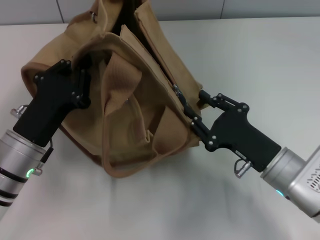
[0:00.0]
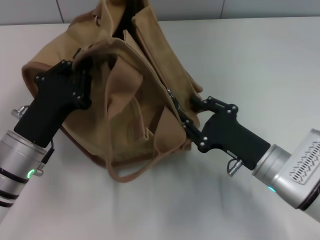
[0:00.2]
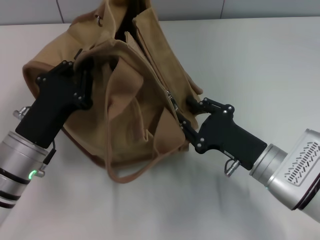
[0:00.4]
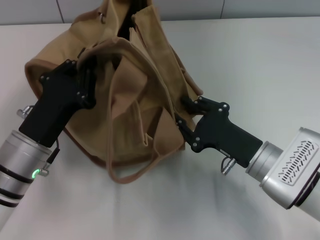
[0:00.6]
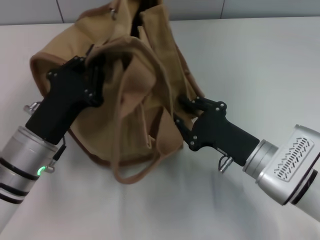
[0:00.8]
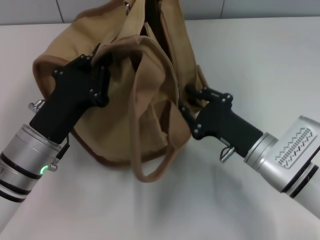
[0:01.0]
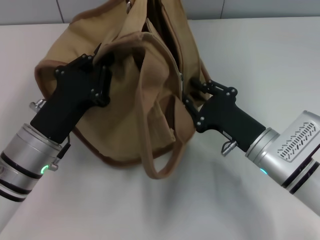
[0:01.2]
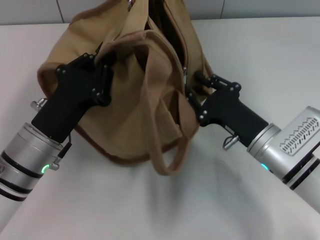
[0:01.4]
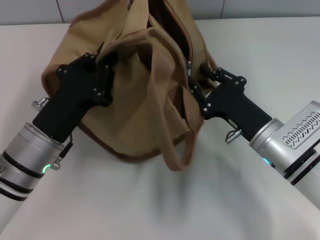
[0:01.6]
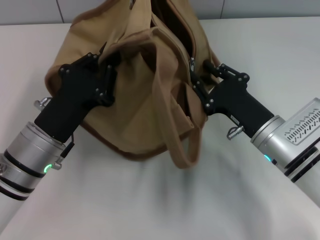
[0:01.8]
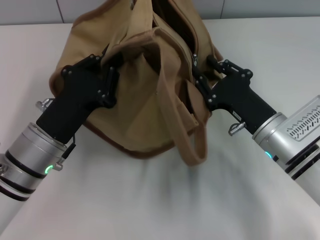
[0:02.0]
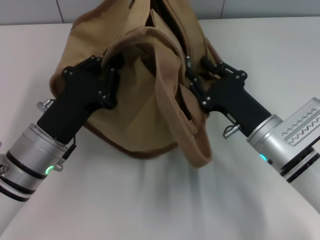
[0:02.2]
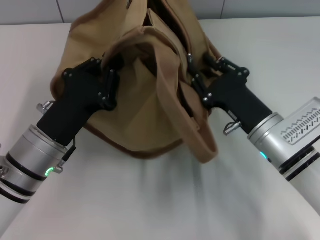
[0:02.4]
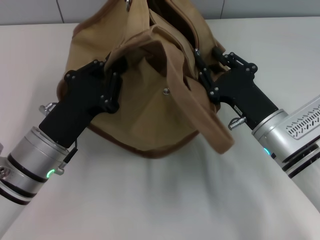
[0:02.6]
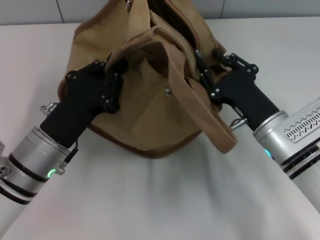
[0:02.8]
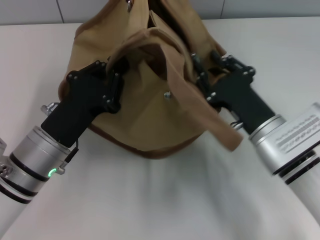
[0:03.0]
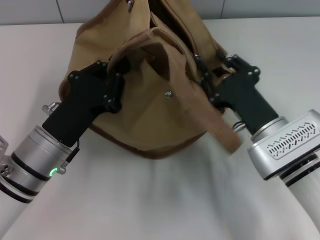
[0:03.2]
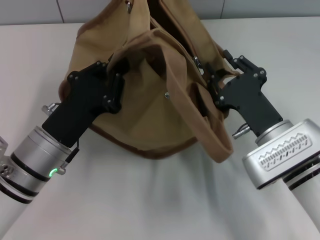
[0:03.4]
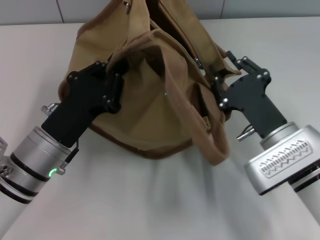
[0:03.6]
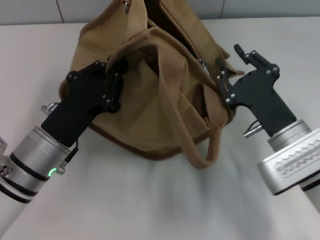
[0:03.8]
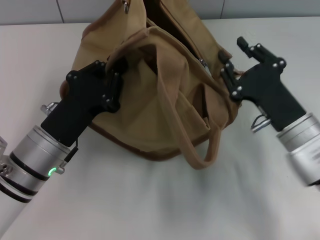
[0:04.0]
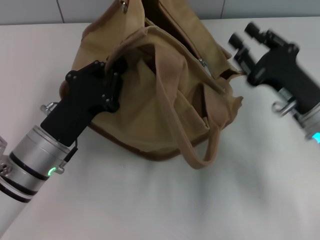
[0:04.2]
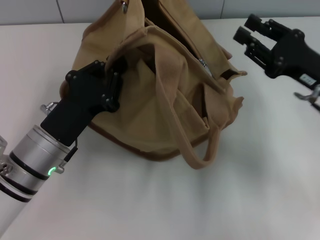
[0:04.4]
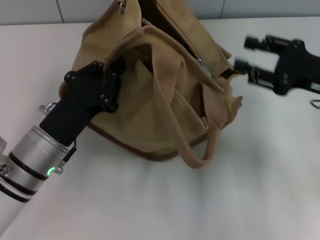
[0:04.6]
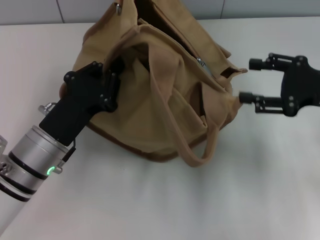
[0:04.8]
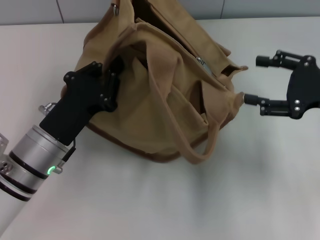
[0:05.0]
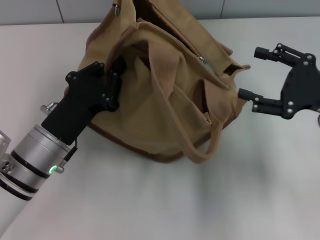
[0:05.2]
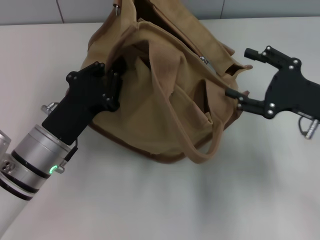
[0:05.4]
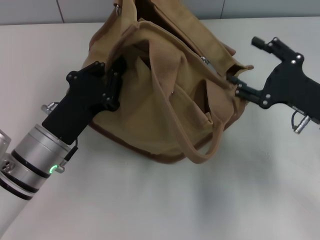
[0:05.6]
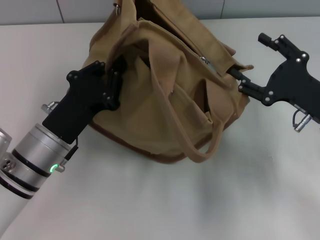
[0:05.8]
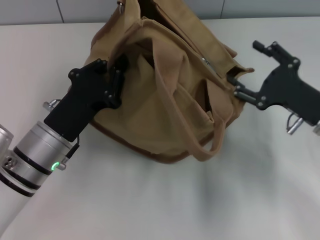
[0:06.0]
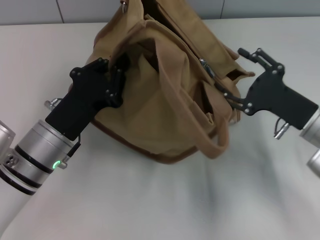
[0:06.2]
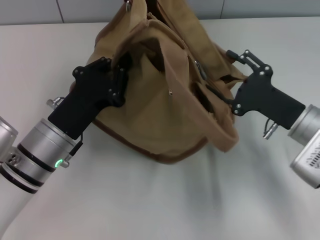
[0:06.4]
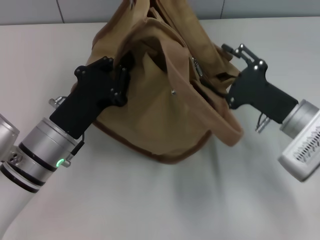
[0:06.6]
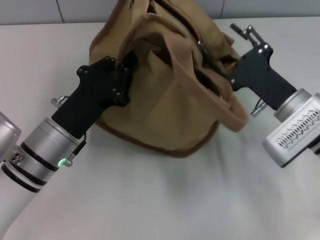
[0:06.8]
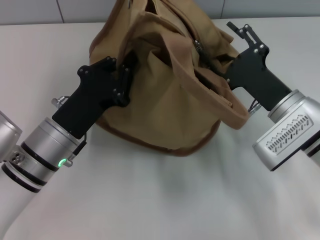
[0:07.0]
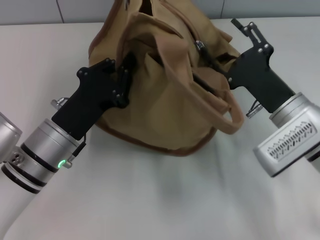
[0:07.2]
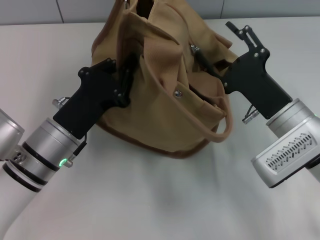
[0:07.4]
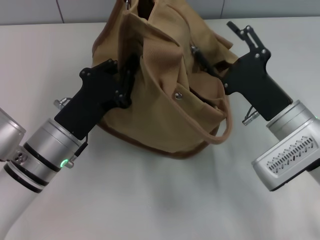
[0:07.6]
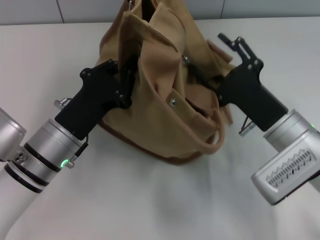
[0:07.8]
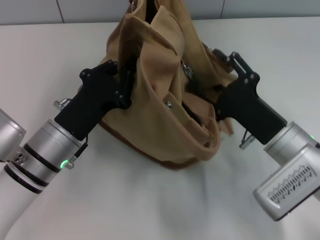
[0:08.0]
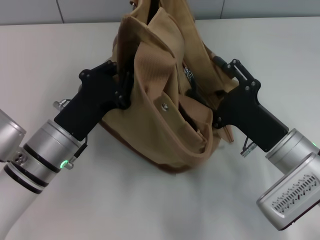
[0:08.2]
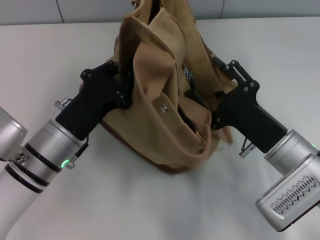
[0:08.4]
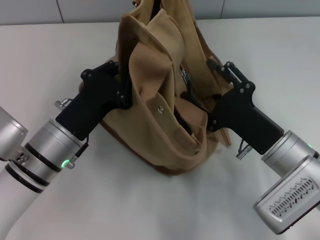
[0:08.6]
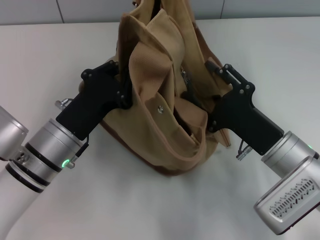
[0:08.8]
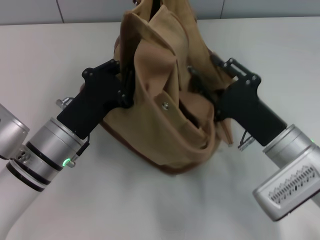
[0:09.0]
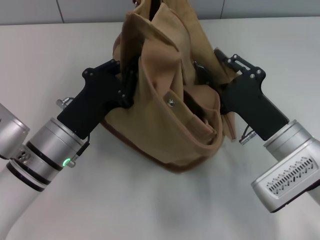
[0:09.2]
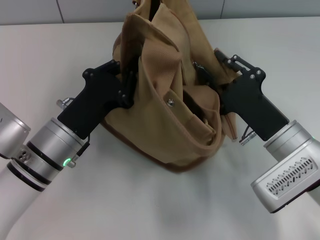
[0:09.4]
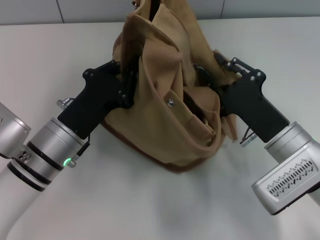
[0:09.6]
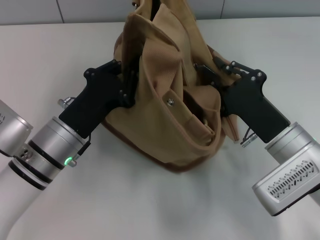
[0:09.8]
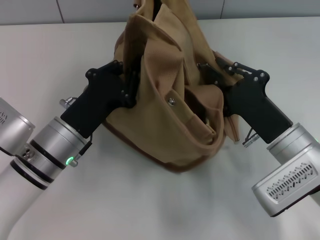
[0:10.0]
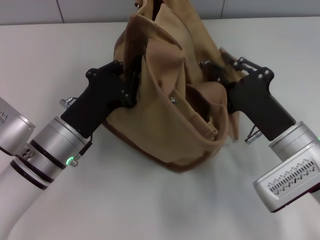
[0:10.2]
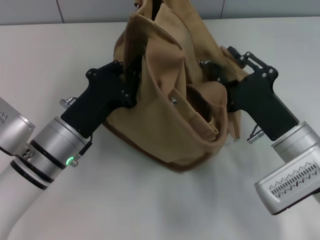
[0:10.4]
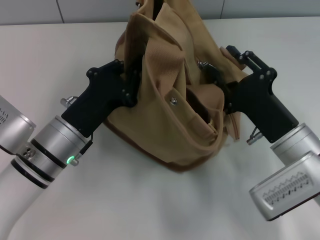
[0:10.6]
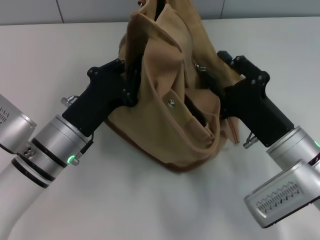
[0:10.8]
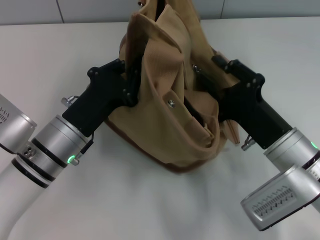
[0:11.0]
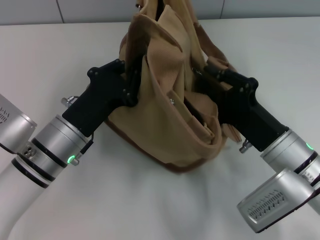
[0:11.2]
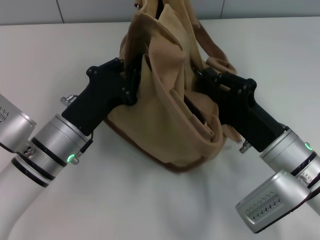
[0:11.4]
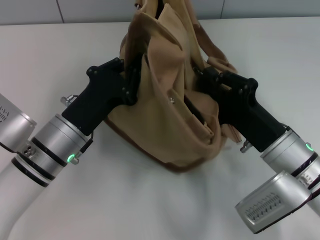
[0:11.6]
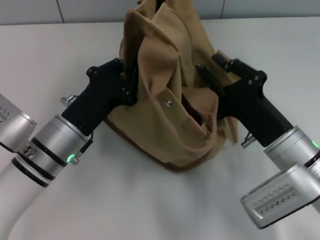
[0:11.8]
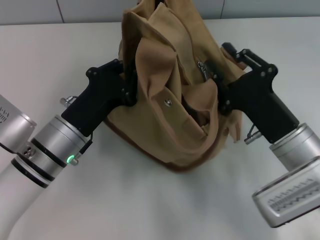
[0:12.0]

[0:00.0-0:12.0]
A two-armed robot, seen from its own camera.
0:03.0 to 0:04.4: The right gripper shifts about 10 cm to the right and upward.
0:04.4 to 0:06.0: The right gripper moves some 5 cm, and opens up.
0:06.0 to 0:07.6: The right gripper heads to the left, covering some 5 cm.
0:09.0 to 0:10.4: The right gripper closes.

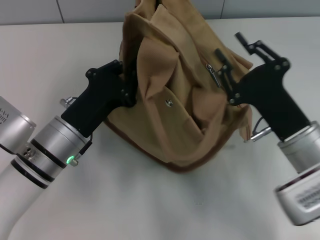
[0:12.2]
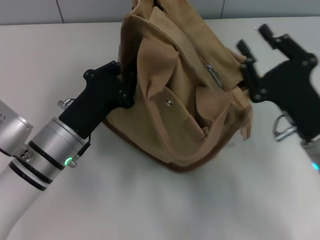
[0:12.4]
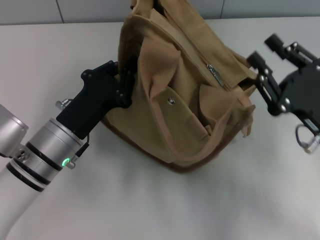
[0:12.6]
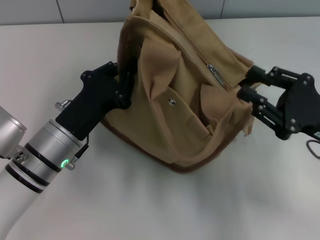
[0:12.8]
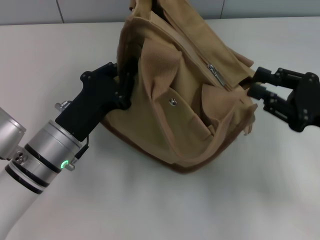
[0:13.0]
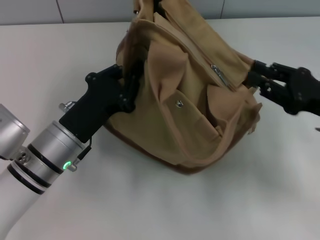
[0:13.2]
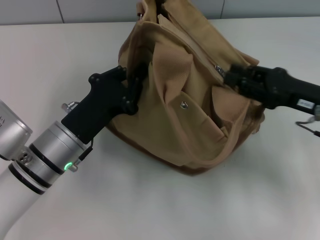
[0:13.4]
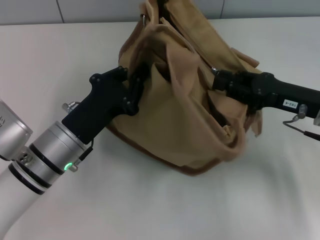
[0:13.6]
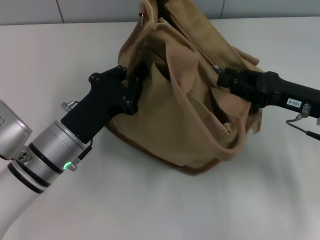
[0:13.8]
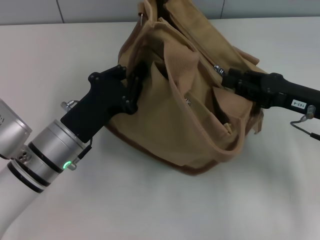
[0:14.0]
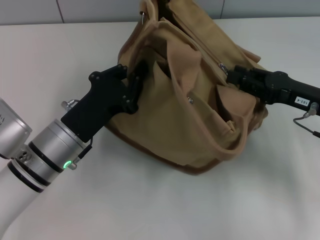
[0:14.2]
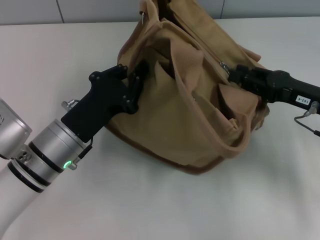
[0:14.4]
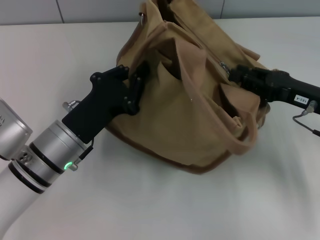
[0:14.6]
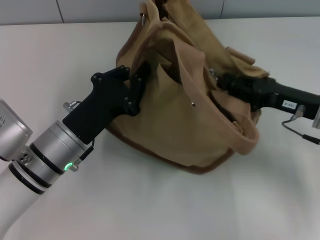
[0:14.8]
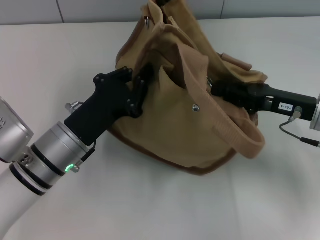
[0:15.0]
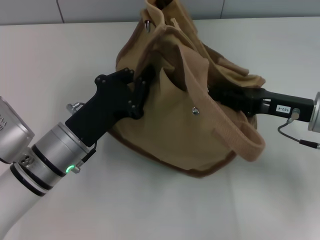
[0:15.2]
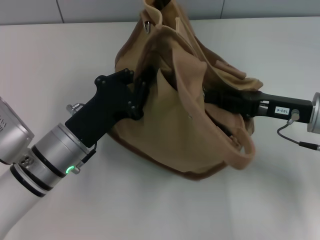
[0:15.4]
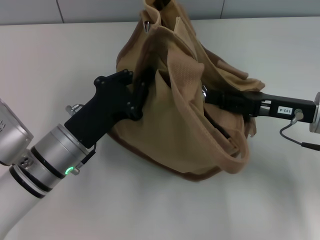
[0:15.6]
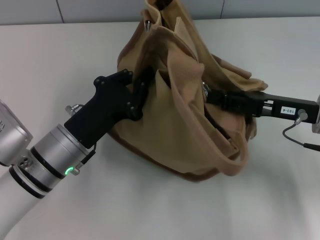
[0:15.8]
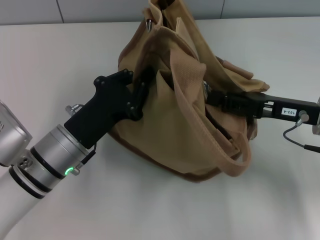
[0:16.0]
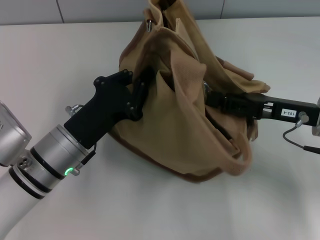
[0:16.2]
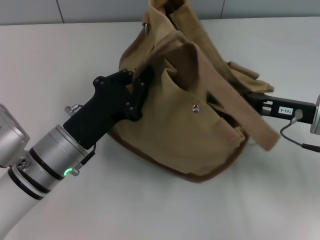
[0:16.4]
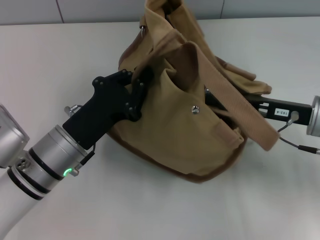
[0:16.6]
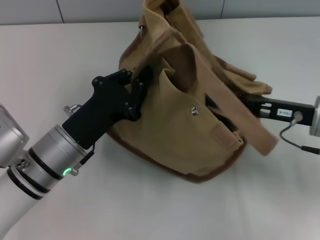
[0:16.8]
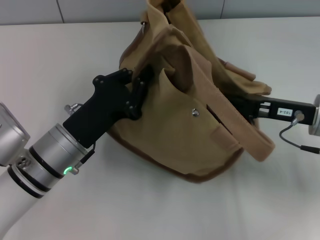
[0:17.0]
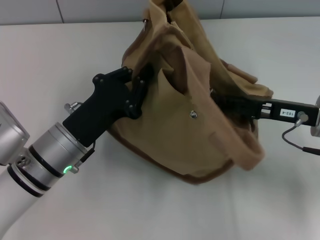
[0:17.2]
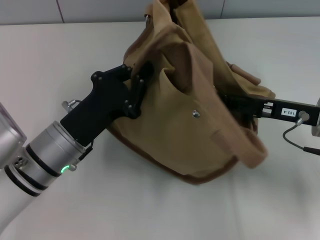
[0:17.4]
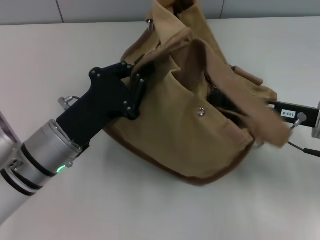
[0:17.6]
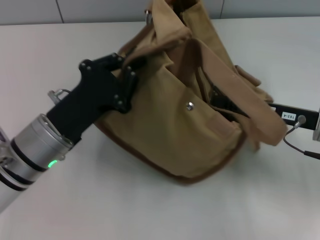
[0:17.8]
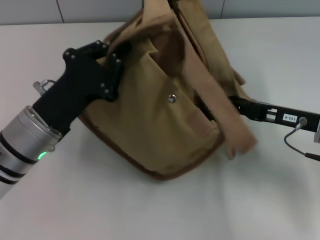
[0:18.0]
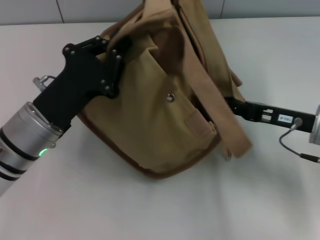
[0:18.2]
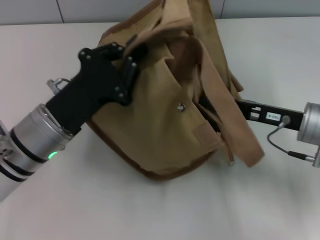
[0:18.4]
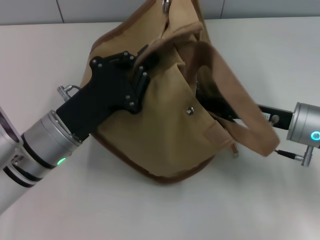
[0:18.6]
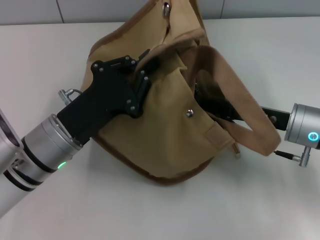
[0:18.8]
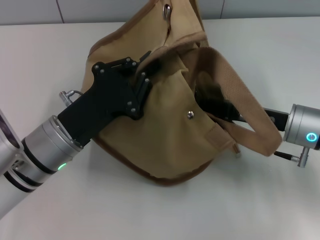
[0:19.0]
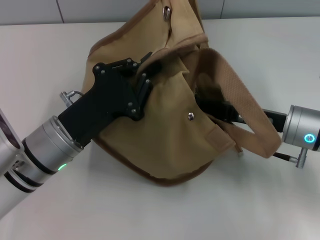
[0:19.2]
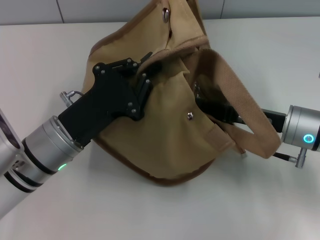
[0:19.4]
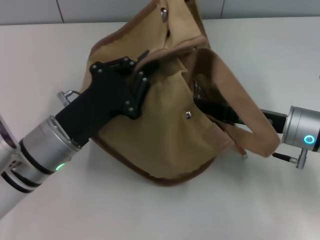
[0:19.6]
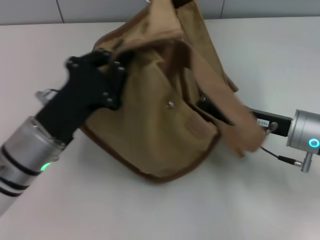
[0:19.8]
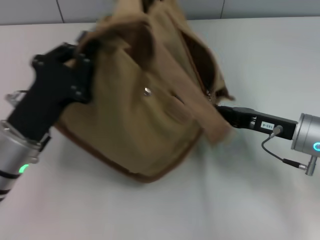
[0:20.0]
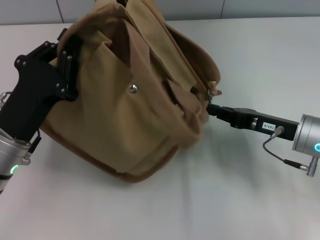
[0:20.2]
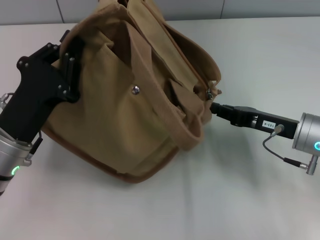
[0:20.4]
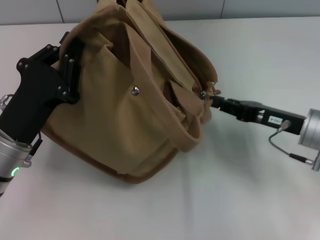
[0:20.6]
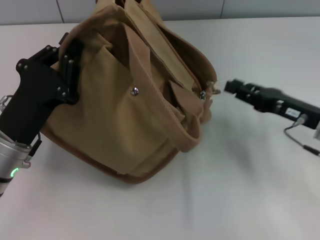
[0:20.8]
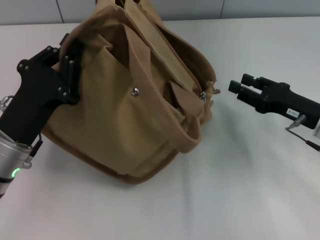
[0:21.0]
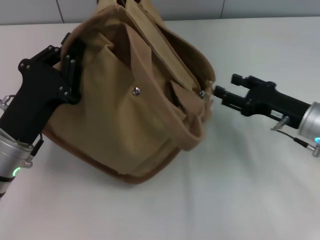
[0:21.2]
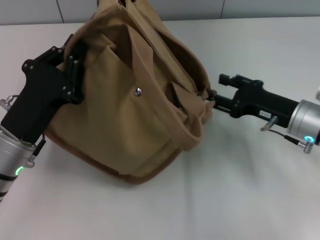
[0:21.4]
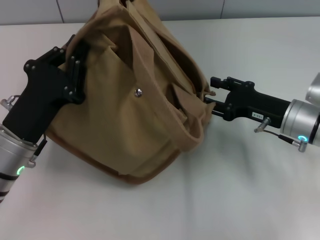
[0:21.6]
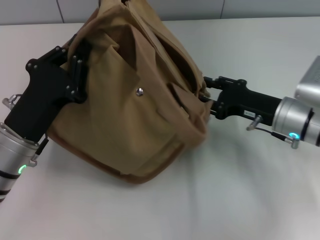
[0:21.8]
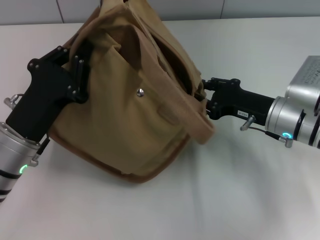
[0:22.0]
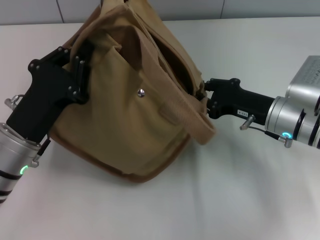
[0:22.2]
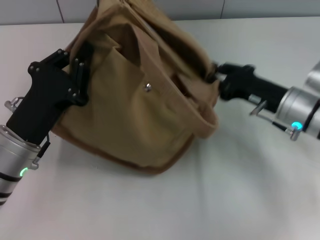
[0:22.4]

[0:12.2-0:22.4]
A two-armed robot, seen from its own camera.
Step, 0:12.2 to 0:20.6: Pull open the zipper with your right hand.
0:12.2 to 0:13.6: The right gripper travels to the right and forward by about 10 cm.
0:13.6 to 0:16.6: There are only small adjustments of the grippers.
0:19.4 to 0:21.0: The left gripper heads to the left, covering approximately 5 cm. The right gripper shifts some 5 cm to the right.
0:21.0 to 0:22.4: The right gripper goes approximately 5 cm to the left, and opens, then closes again.
